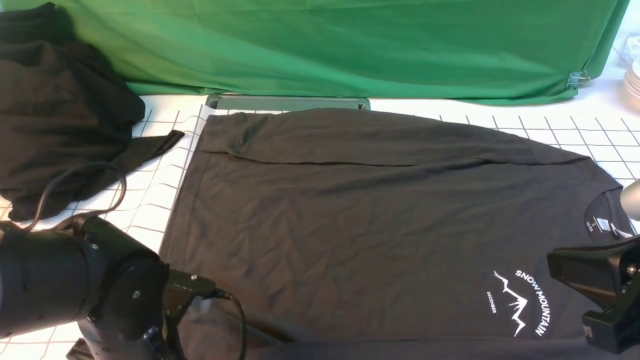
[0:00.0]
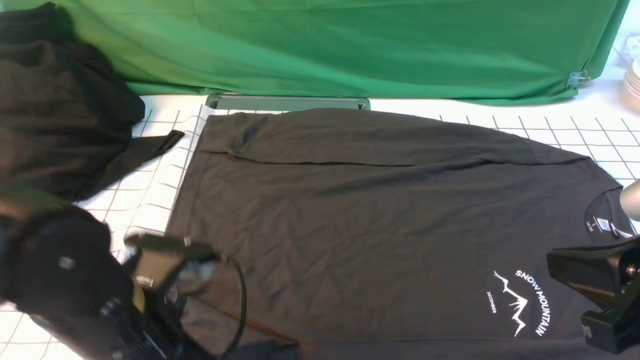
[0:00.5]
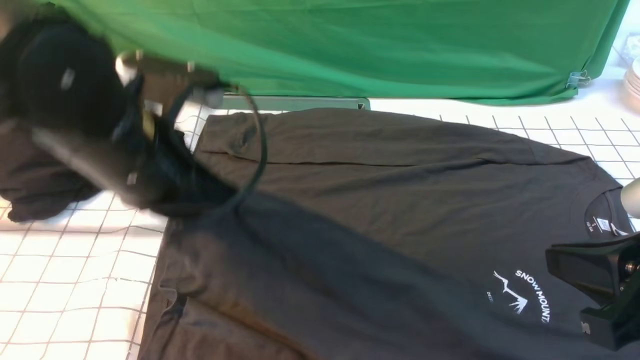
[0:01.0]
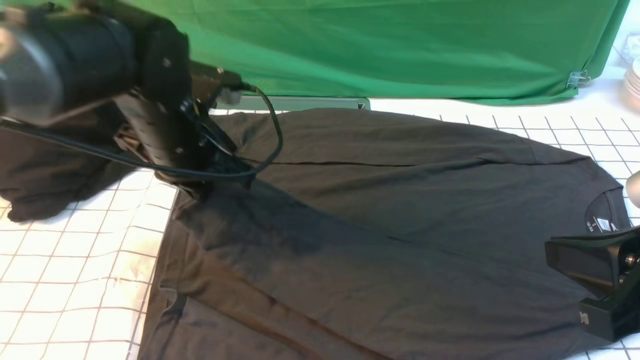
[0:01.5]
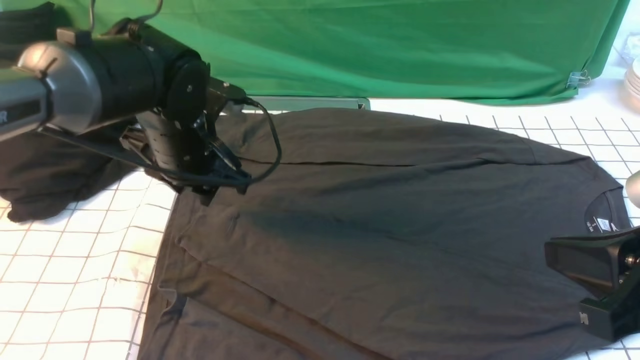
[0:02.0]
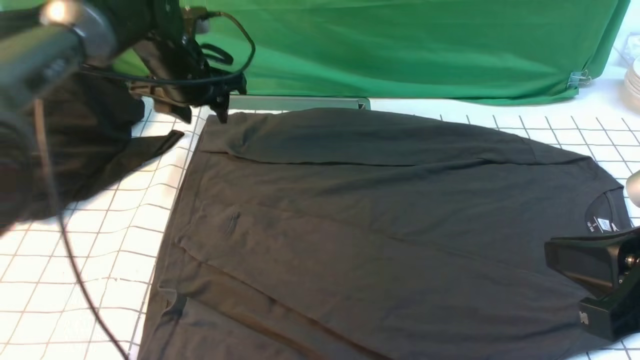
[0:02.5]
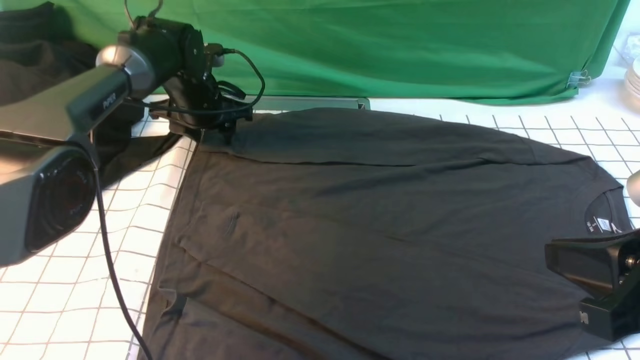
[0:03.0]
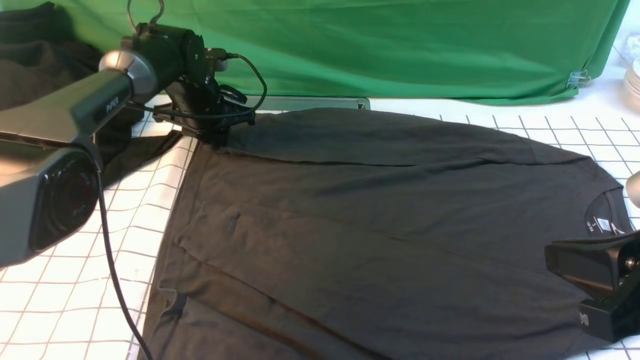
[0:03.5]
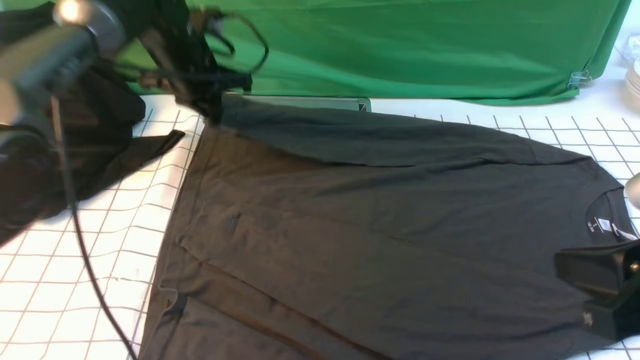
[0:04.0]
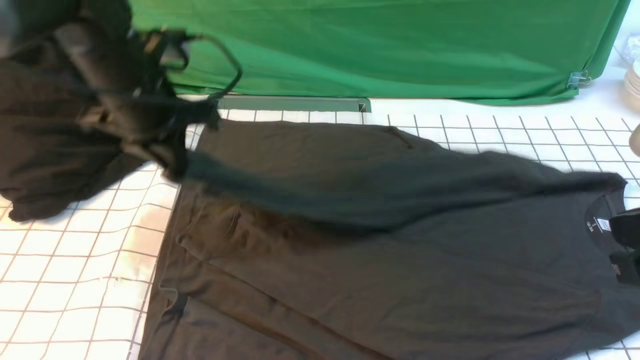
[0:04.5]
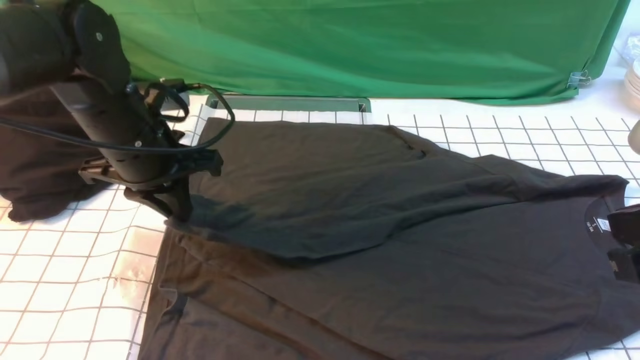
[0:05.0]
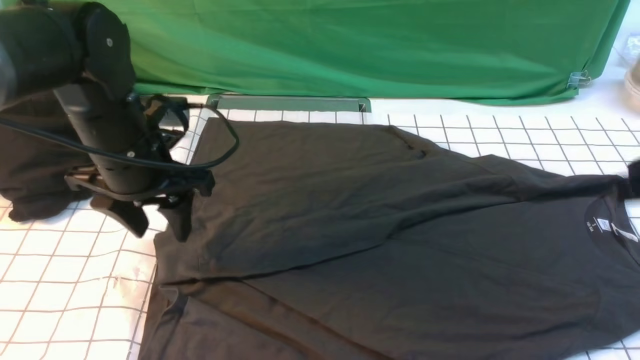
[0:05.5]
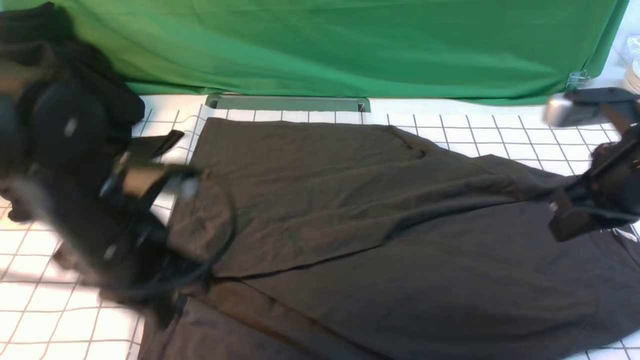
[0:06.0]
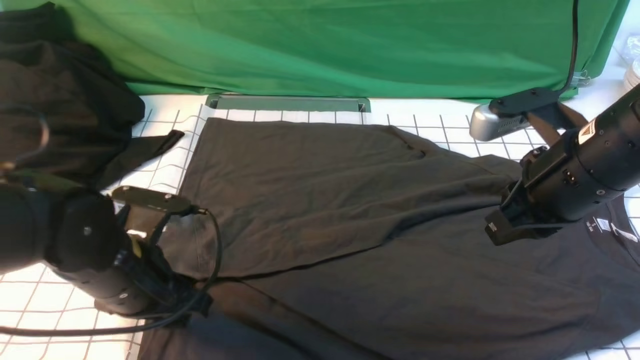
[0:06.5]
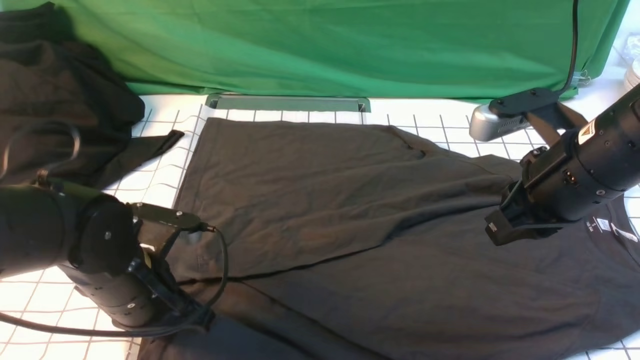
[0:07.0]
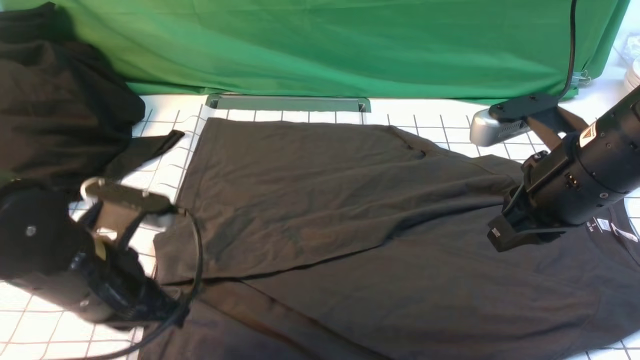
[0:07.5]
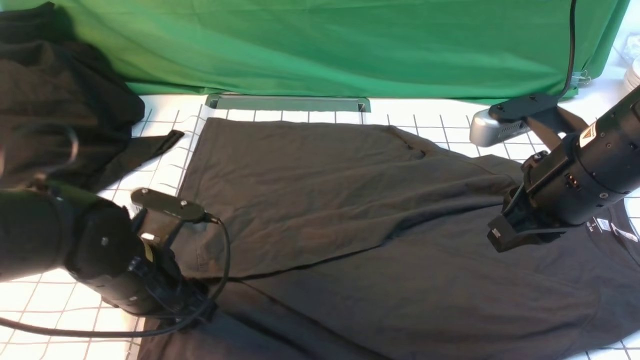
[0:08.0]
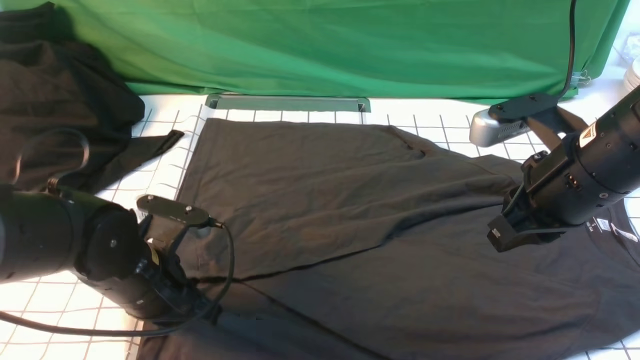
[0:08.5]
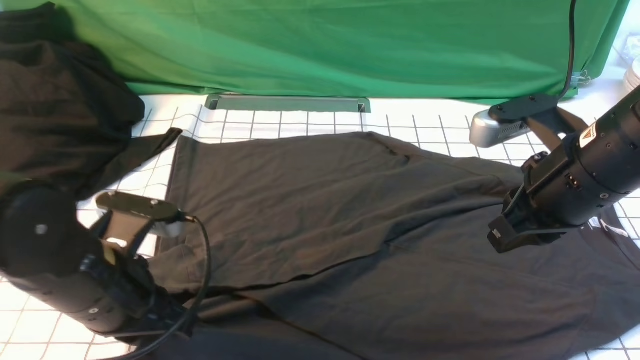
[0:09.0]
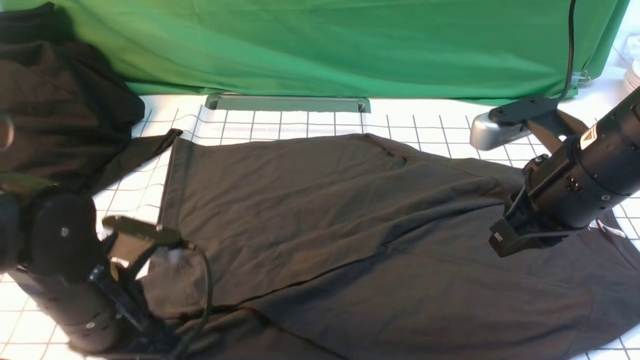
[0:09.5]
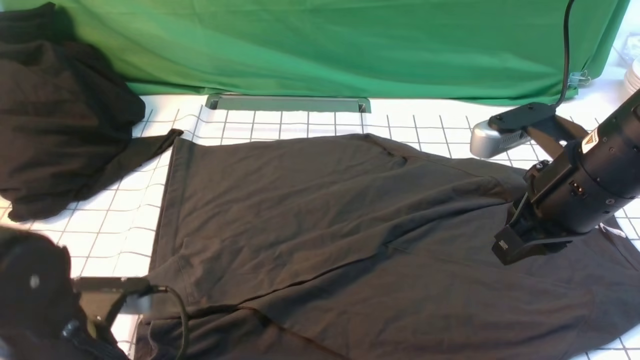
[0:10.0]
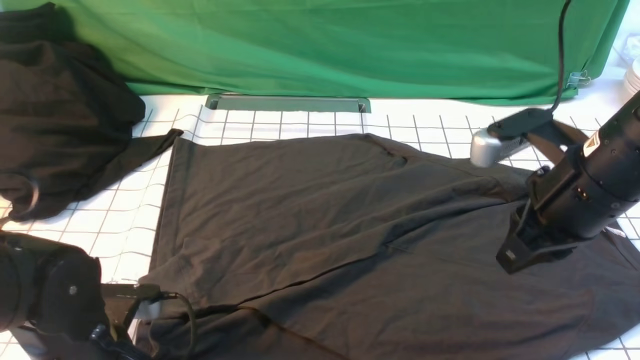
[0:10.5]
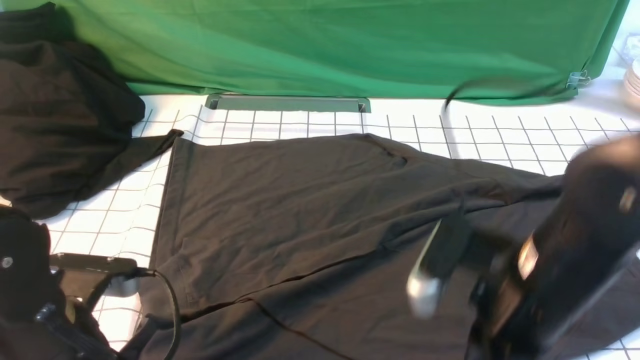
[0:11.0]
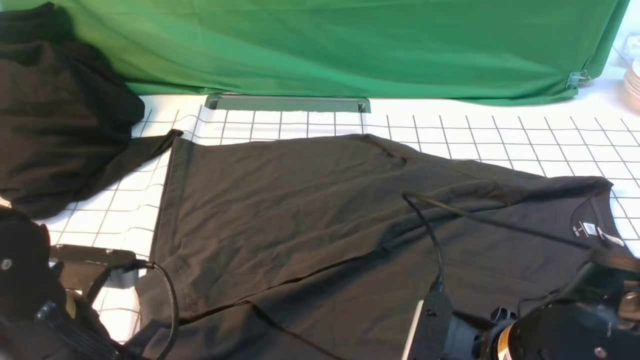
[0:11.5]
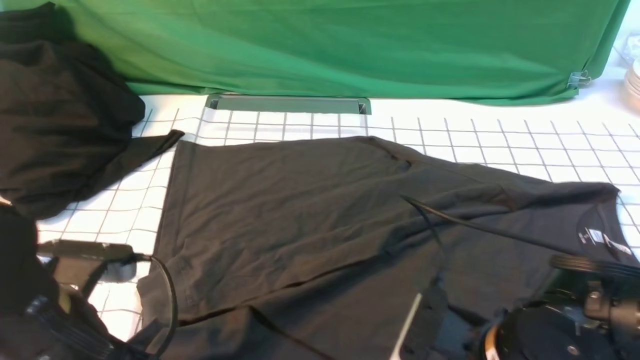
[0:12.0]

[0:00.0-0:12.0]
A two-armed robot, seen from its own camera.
Step, 0:01.0 to 0:02.0: use the left arm to drag and place the cuff at the centered position on the left edge of the fabric.
Step, 0:02.5 to 0:03.5: use the left arm to clamp the cuff farthest from it.
Step, 0:04.0 to 0:05.0: use the left arm to drag and drop the cuff onto the cuff closest to the left arm.
0:00.0 to 0:02.0: The left gripper travels forward and upward by about 20 cm, and opens.
0:02.0 to 0:04.0: The left gripper is displaced forward by roughly 10 cm, and closes its fingers.
0:04.0 to 0:06.0: The right gripper travels forward by roughly 15 cm; the left gripper shifts approximately 25 cm backward, and opens, then closes again.
0:06.0 to 0:08.0: The right gripper moves to the left, roughly 5 cm; the left gripper swings up and down, approximately 5 cm each way, with 2 reversals, and opens up.
0:08.0 to 0:10.0: The left gripper travels backward by some 10 cm, and closes, then reopens.
0:10.0 to 0:12.0: The left gripper shifts about 5 cm upward, and closes its fingers. Meanwhile the right gripper heads downward, backward and to the left, covering roughly 15 cm, and opens and closes again.

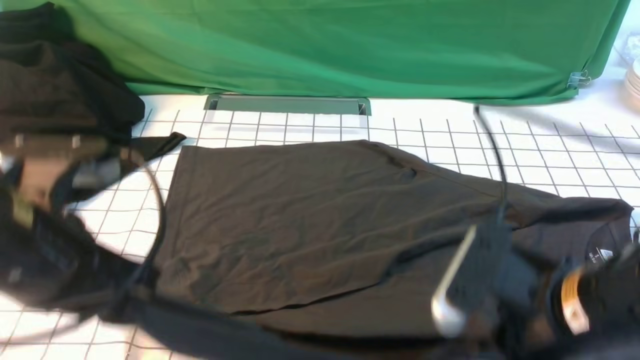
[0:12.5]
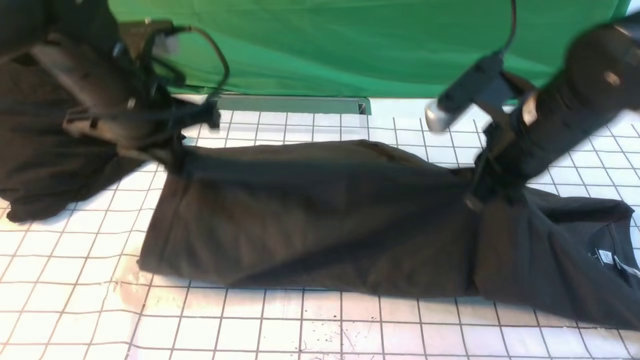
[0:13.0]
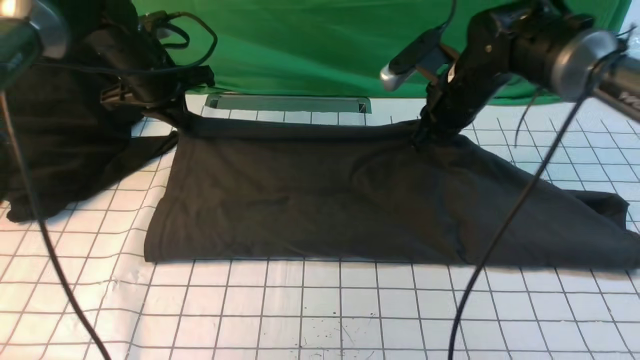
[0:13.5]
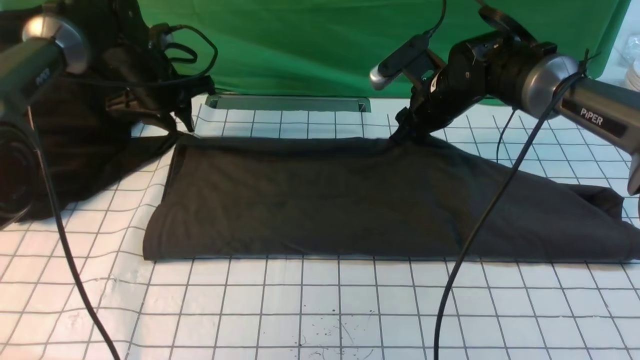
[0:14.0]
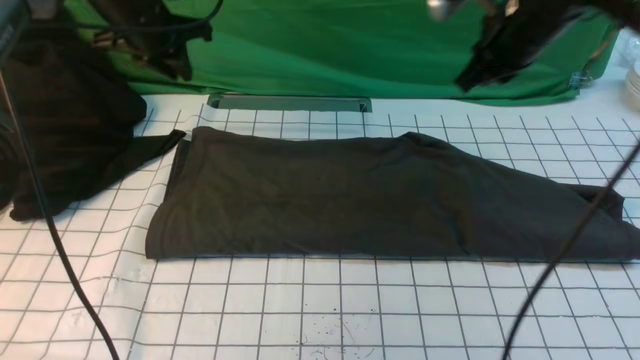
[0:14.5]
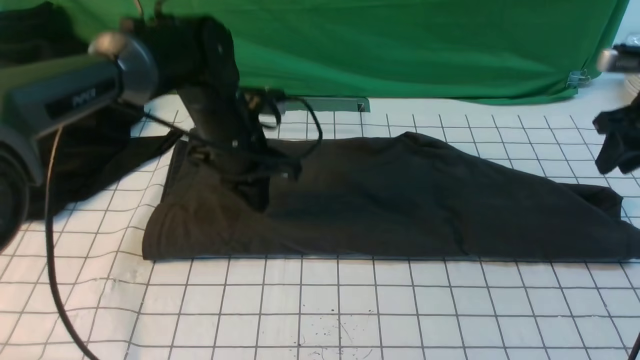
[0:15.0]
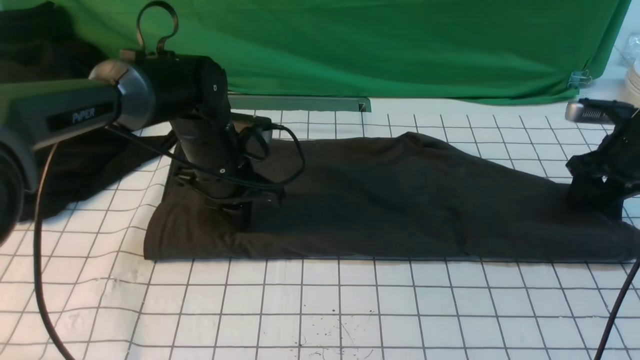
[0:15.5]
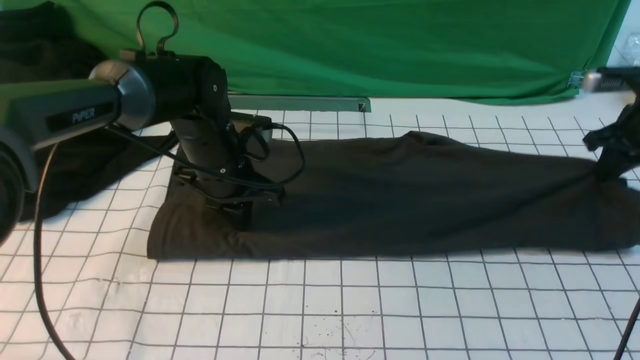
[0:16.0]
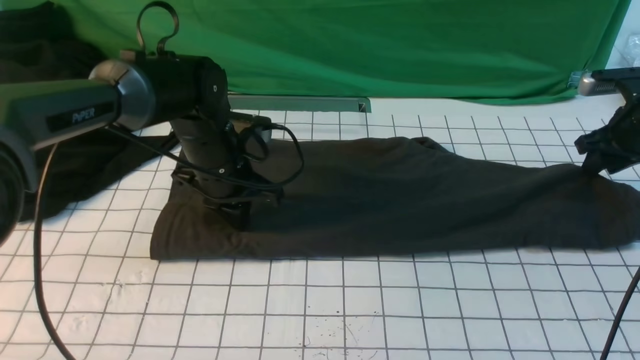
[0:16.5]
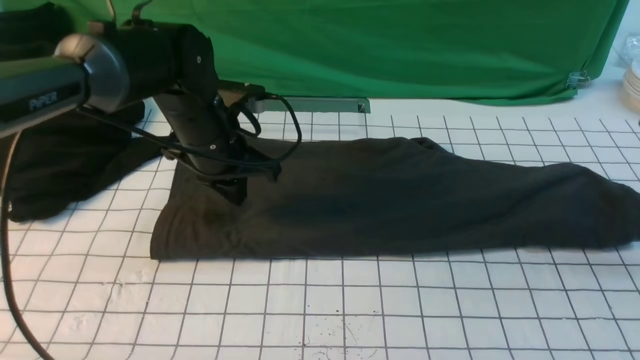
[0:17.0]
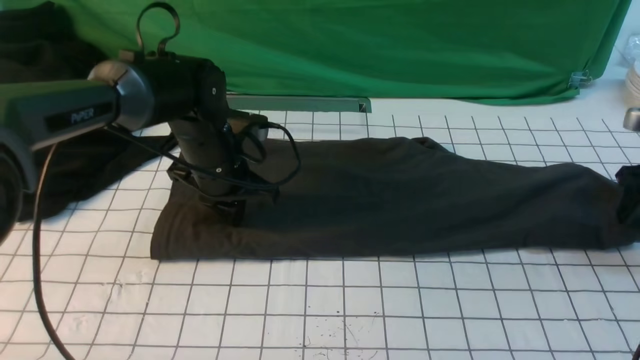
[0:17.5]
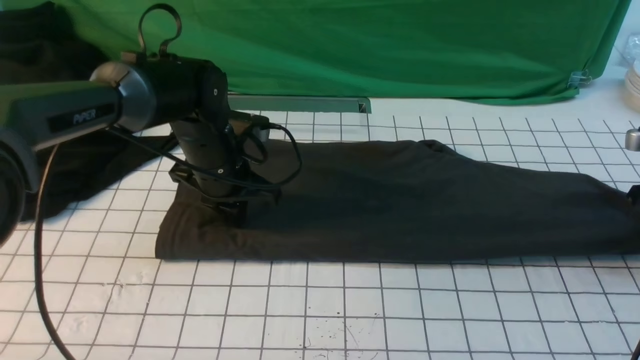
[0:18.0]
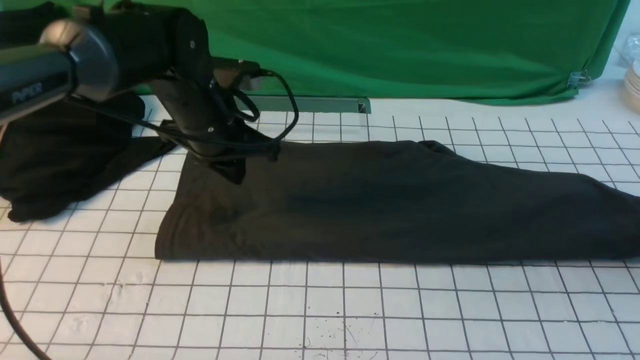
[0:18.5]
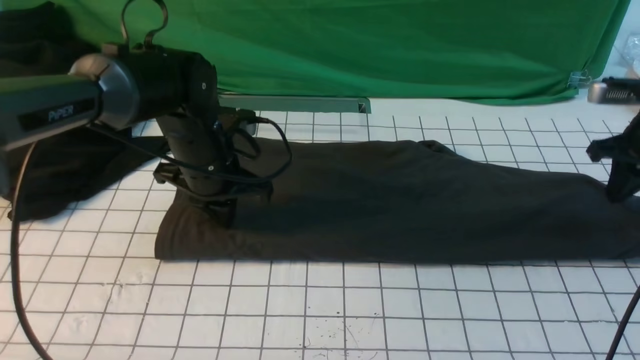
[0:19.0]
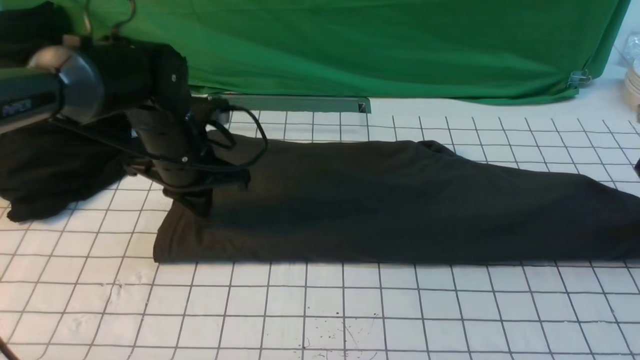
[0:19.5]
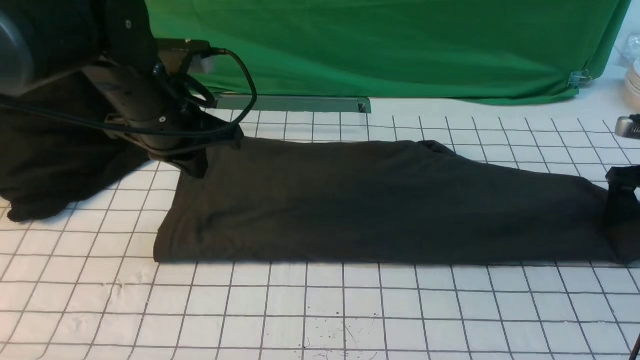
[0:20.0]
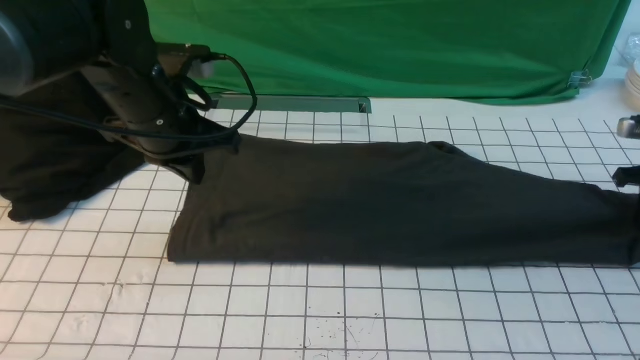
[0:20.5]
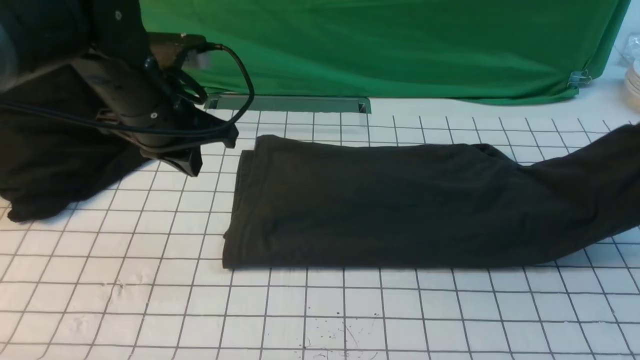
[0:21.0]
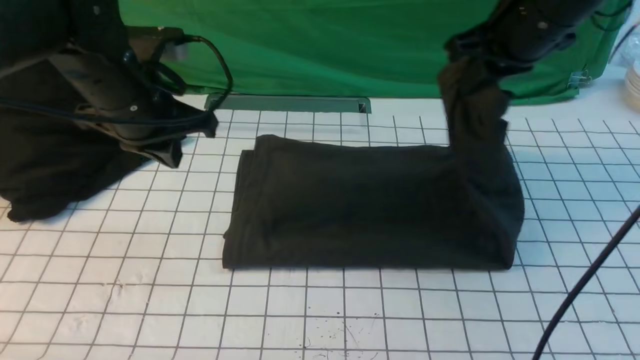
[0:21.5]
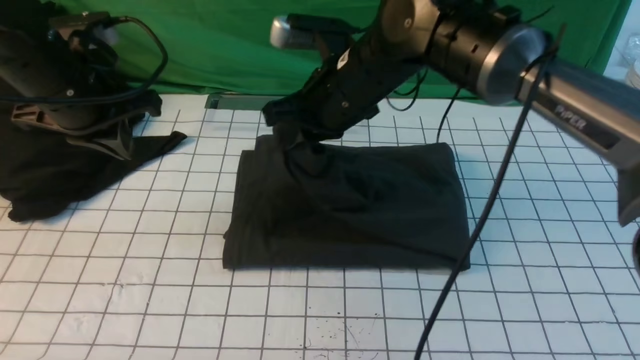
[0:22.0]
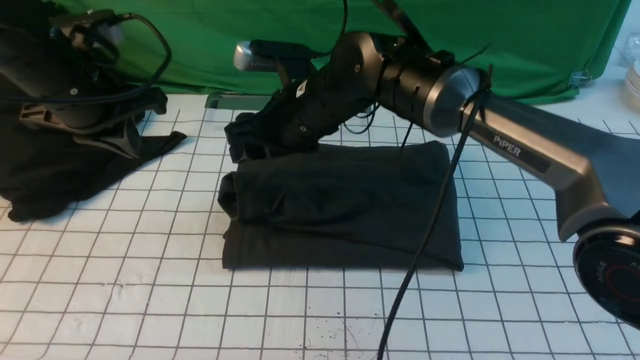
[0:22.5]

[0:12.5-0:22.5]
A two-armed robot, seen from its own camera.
Step, 0:12.5 to 0:14.0: use both arms to drag the lower edge of the fabric forward and fold it over the upper edge.
Step, 0:14.5 to 0:20.5: use the right arm to clamp the right edge of the fabric.
0:12.5 to 0:14.5: Both grippers travel together forward, roughly 30 cm. The right gripper opens, then closes once more.
0:14.5 to 0:16.5: The right gripper heads to the right and downward, covering roughly 20 cm, and opens, while the left gripper goes roughly 15 cm downward, backward and to the right.
0:16.5 to 0:18.5: The right gripper moves up and down over approximately 5 cm, changing direction 2 times.
0:18.5 to 0:20.5: The right gripper shifts some 5 cm downward, and closes its fingers. The left gripper shifts by about 5 cm.
0:20.5 to 0:22.5: The right gripper shifts approximately 40 cm to the left, and opens up; the left gripper travels to the left by approximately 5 cm.
